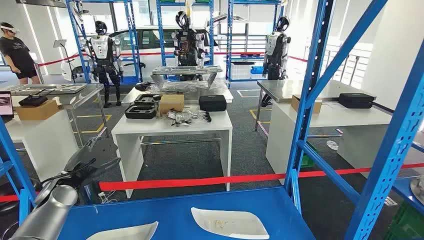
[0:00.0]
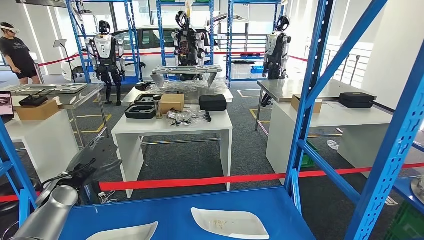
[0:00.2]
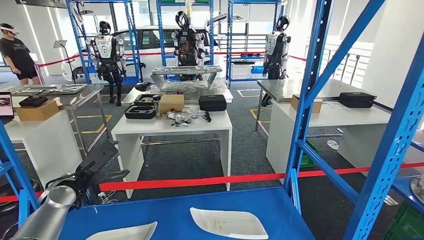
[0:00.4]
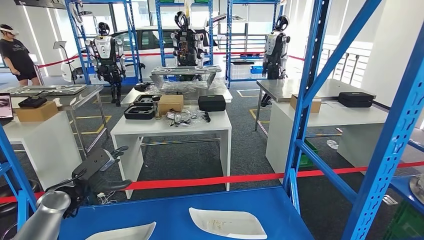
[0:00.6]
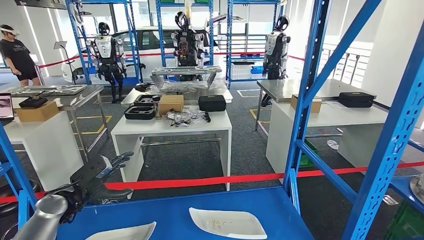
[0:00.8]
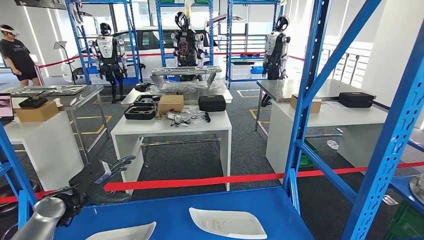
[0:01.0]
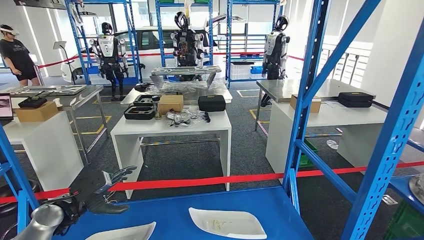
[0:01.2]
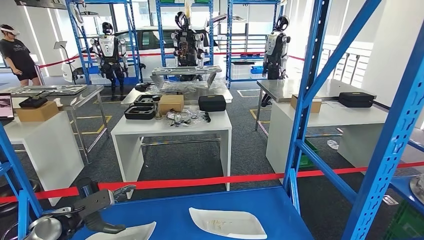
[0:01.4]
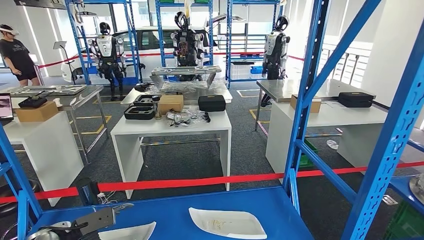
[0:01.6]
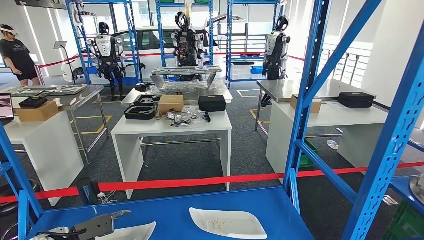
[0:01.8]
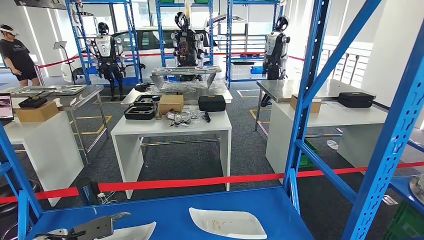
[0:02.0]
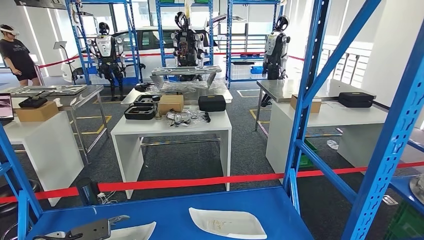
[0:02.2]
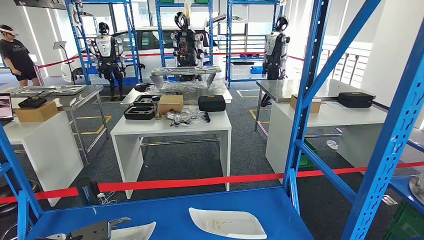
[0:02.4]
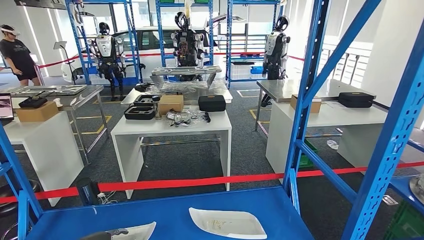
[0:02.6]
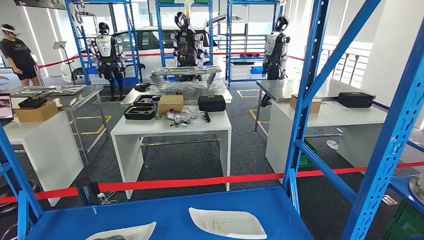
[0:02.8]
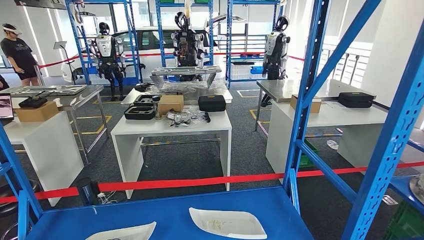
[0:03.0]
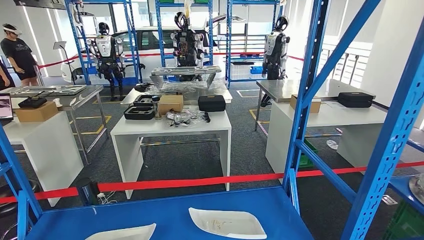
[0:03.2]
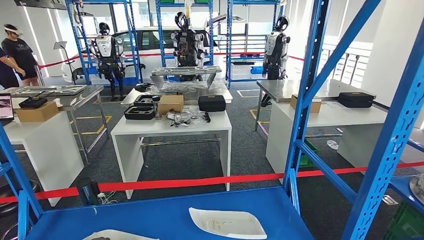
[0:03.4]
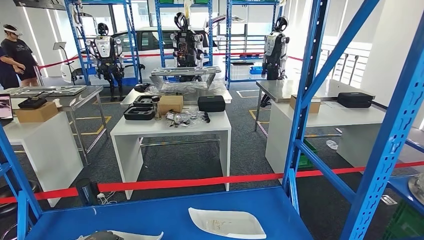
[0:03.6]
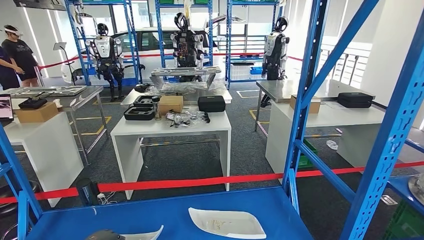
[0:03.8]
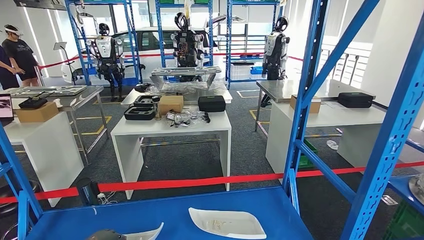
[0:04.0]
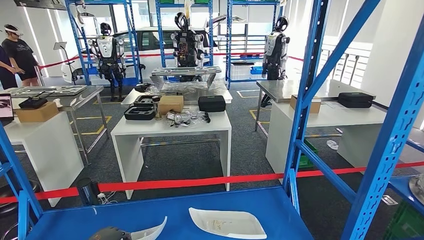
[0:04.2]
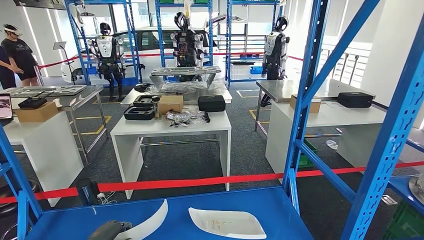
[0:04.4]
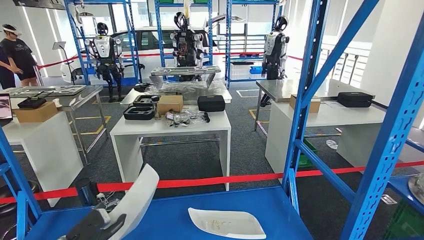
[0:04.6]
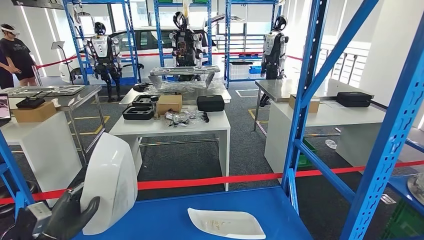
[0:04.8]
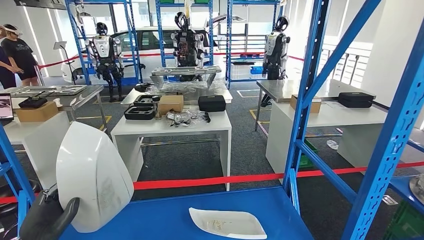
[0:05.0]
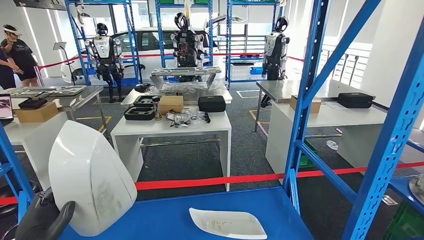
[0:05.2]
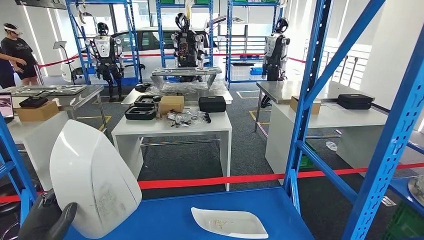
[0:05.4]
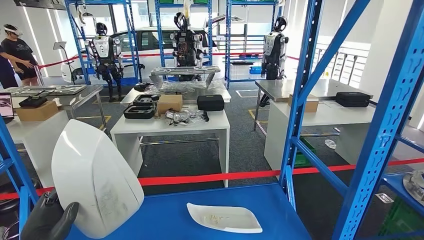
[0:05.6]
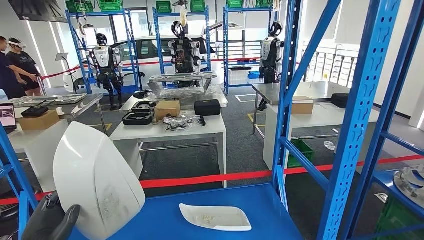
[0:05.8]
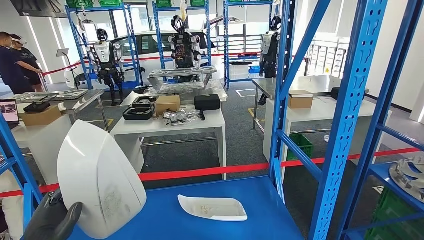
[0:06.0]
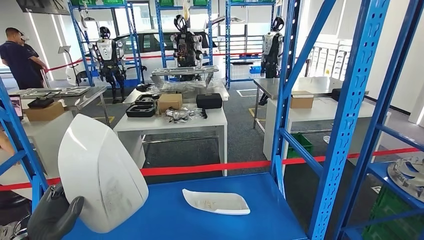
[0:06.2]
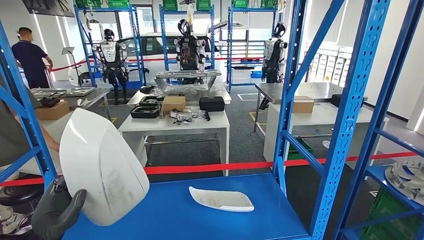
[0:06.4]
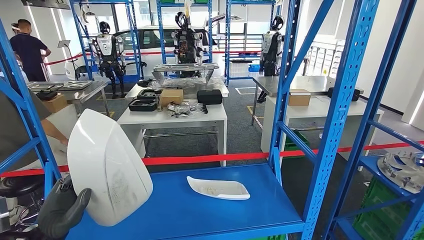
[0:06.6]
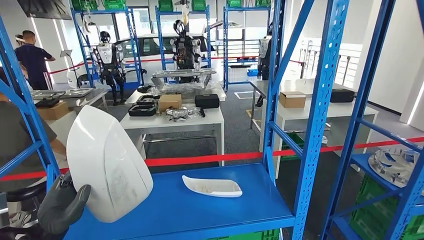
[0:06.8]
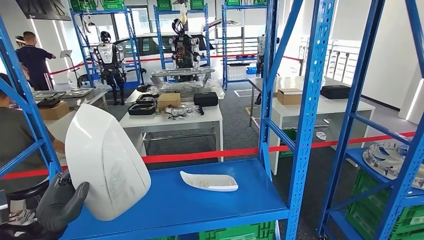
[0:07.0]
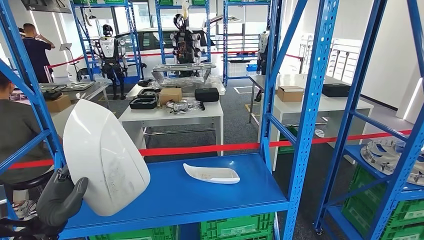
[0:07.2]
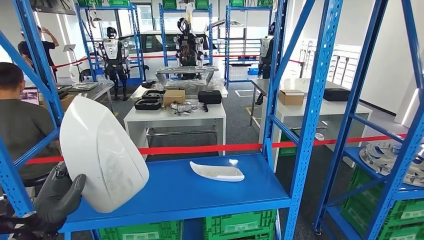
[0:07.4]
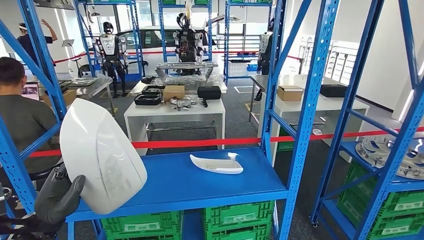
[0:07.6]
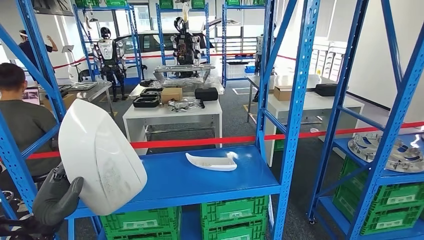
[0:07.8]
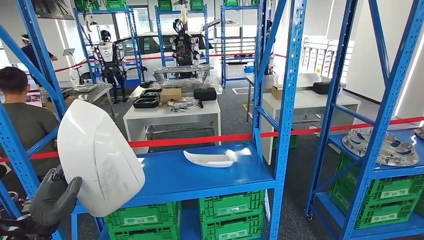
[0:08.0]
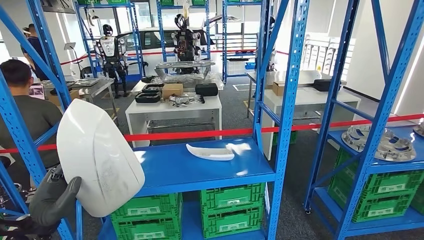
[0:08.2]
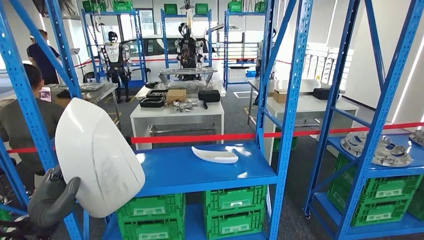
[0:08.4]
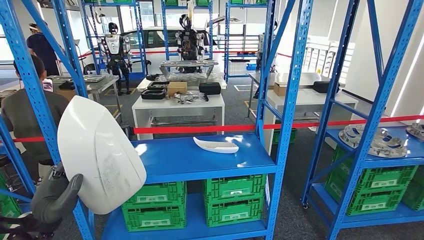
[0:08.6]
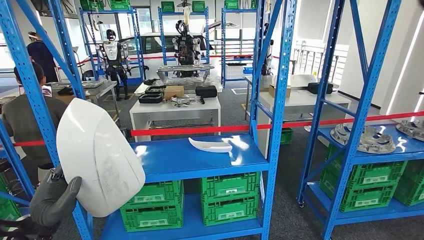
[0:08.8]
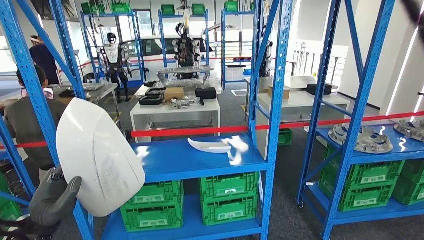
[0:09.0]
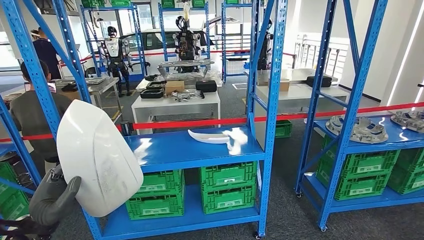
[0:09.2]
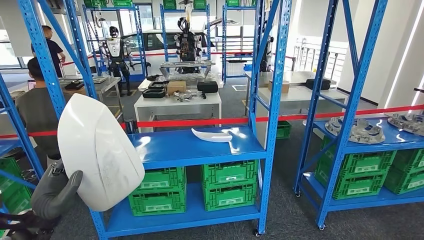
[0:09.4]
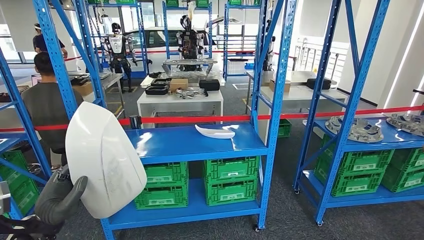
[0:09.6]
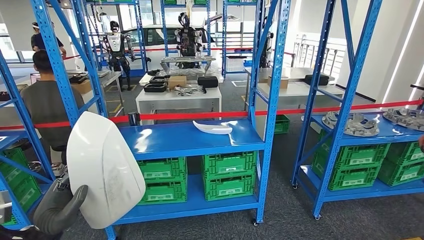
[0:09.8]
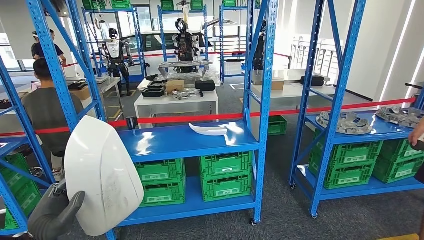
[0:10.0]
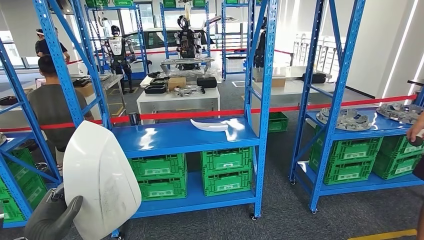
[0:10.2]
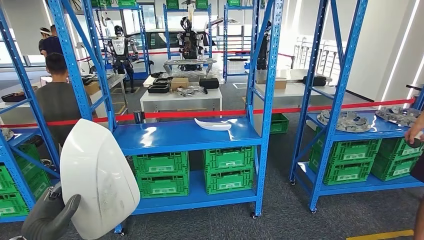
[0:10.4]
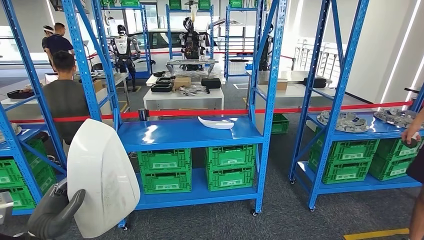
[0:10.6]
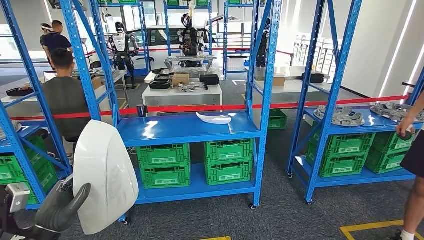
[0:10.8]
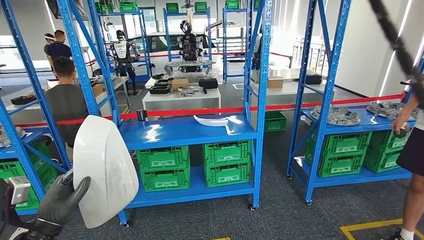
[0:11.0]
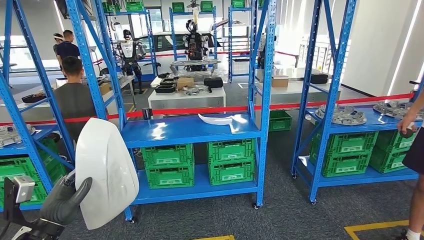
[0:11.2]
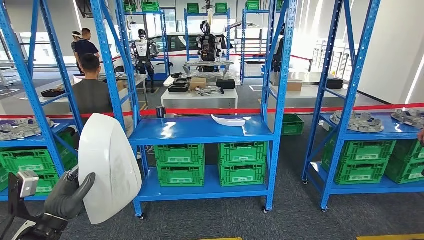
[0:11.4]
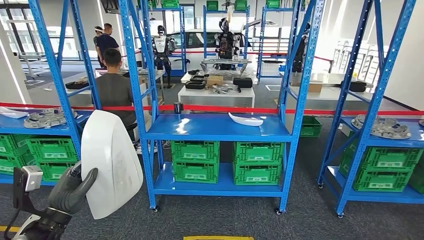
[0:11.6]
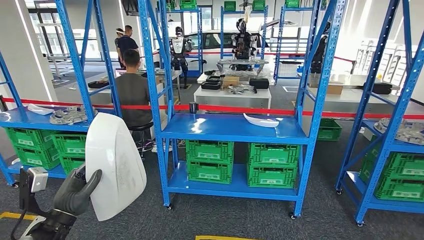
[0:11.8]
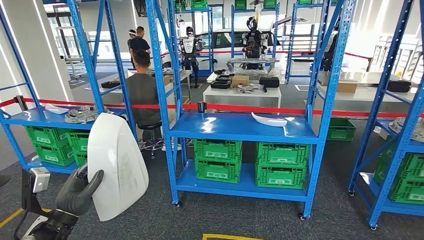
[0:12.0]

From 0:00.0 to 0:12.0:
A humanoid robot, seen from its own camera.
Step, from 0:00.0 to 0:05.6: Pick up the small parts from the shelf.
From 0:01.6 to 0:03.0: The left hand heads downward, covering some 5 cm.
From 0:03.0 to 0:04.4: The left hand heads to the right, covering approximately 5 cm.

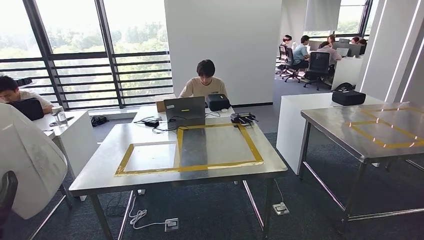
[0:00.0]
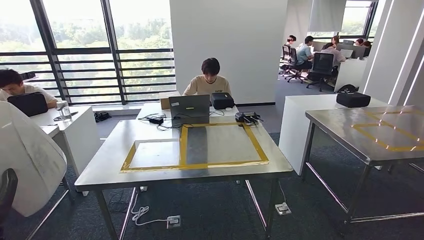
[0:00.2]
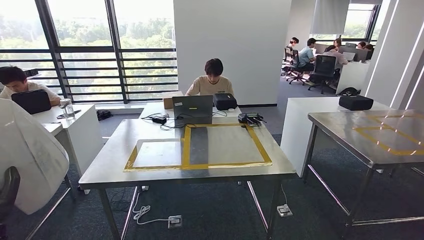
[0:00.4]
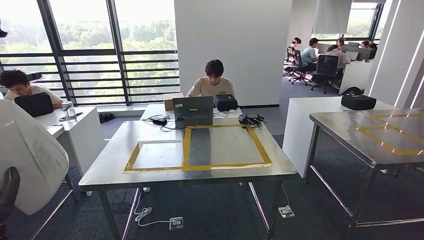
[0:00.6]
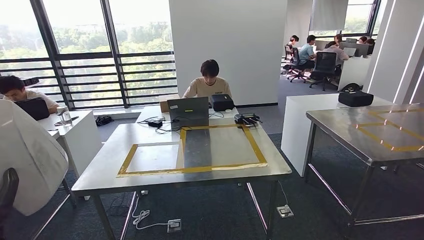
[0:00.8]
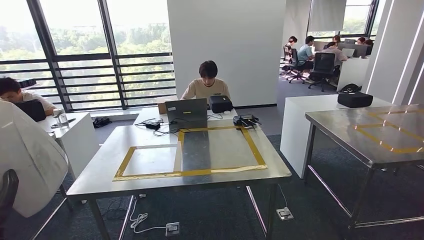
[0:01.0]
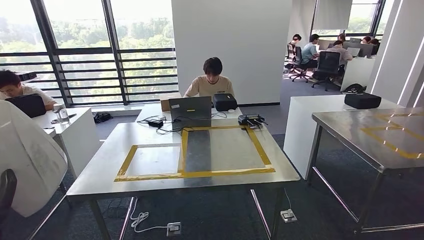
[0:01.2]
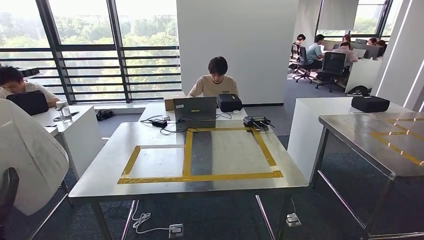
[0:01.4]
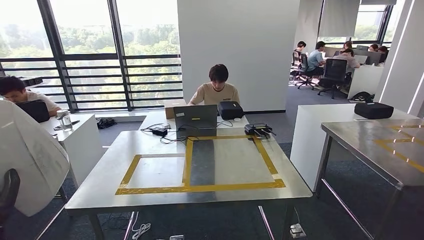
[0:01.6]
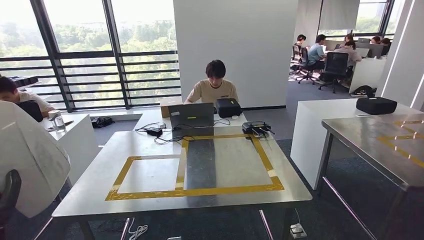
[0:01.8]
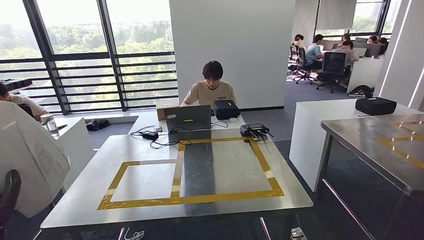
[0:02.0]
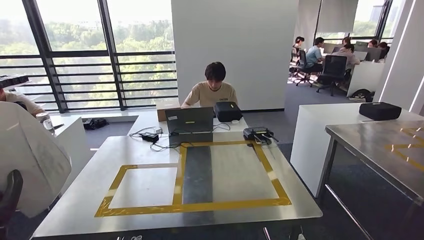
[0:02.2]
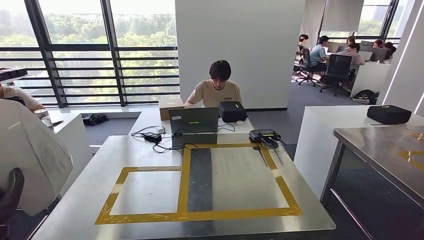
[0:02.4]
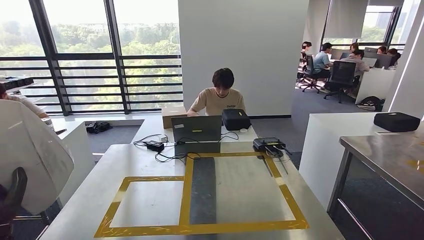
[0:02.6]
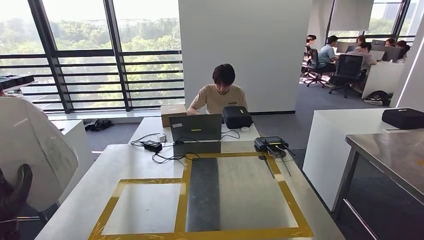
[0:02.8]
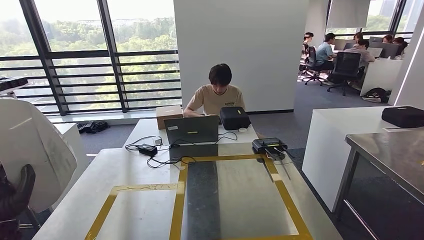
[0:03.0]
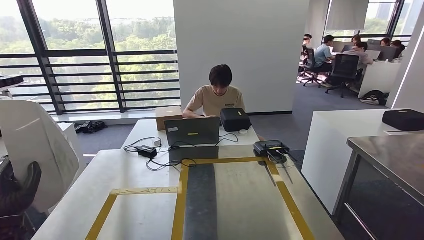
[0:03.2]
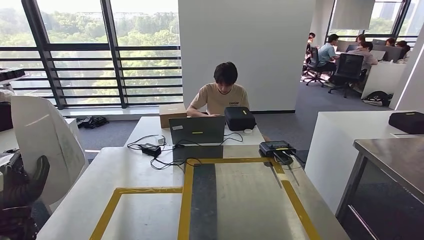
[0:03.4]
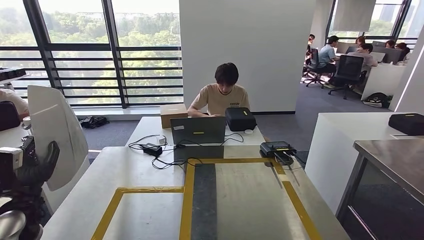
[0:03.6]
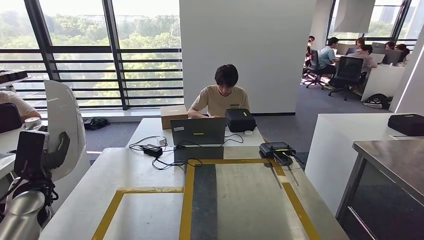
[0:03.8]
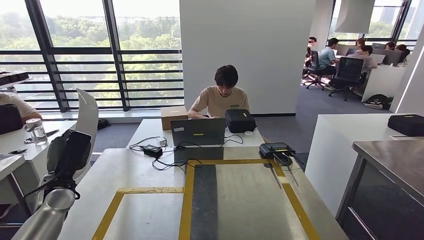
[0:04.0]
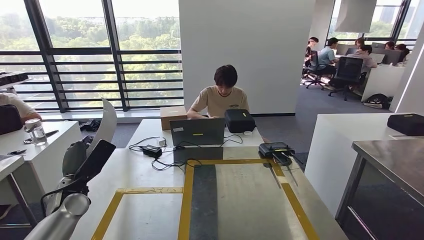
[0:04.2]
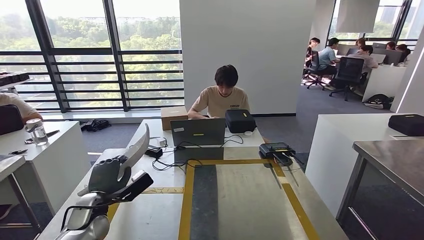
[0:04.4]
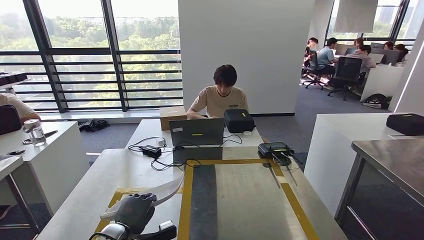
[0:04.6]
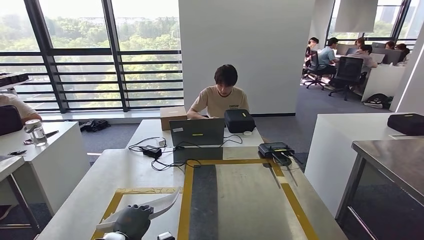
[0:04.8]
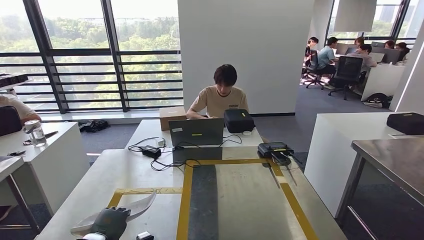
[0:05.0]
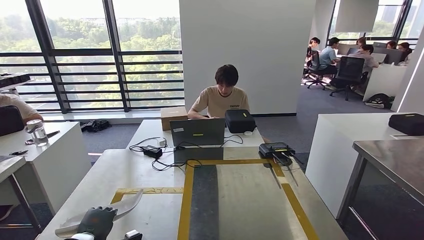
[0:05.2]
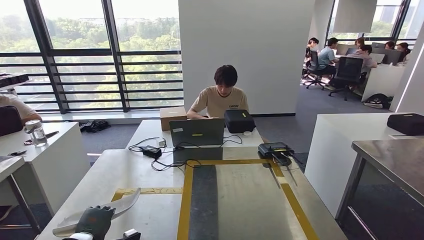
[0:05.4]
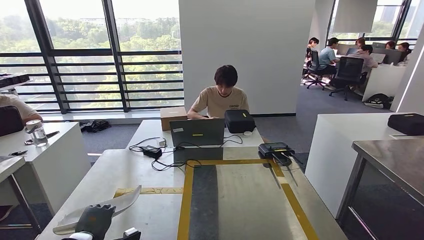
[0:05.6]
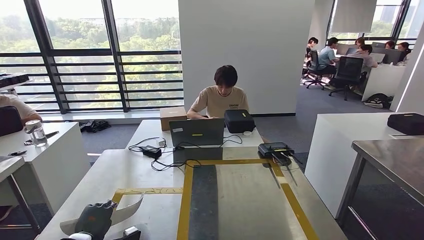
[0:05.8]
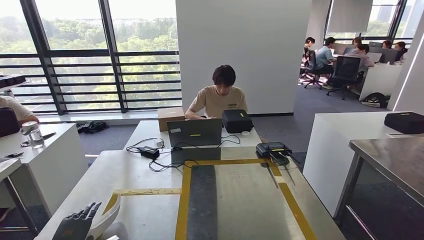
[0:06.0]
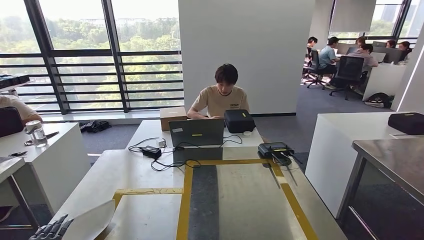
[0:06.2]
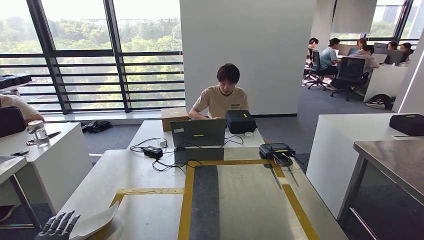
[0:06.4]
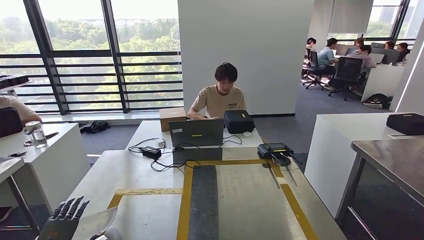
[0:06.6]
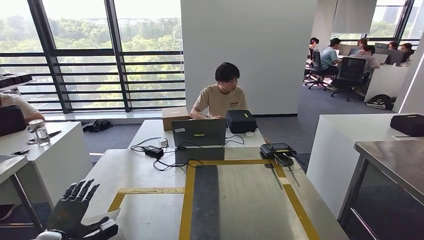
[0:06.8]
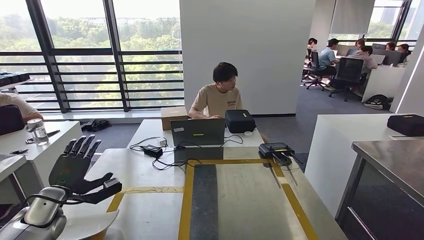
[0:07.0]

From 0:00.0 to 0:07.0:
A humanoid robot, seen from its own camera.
Step, from 0:00.0 to 0:06.8: Insert the small parts into the corresponding holes on the workbench.
From 0:04.2 to 0:05.6: The left hand heads downward and backward, covering roughly 15 cm.
From 0:05.6 to 0:07.0: The left hand goes about 10 cm upward.
